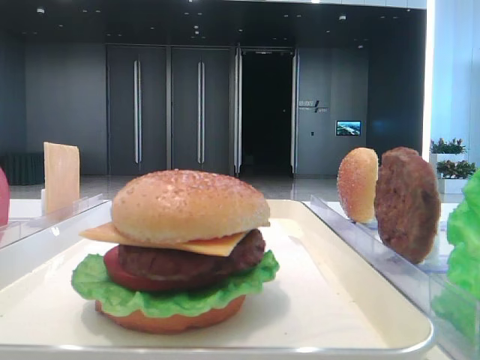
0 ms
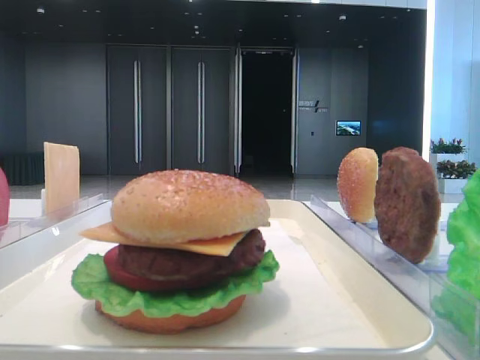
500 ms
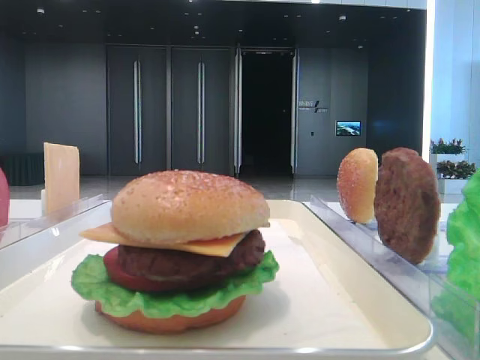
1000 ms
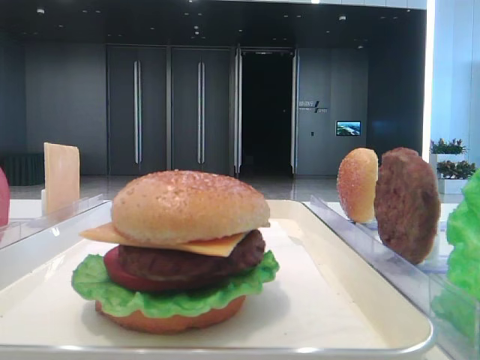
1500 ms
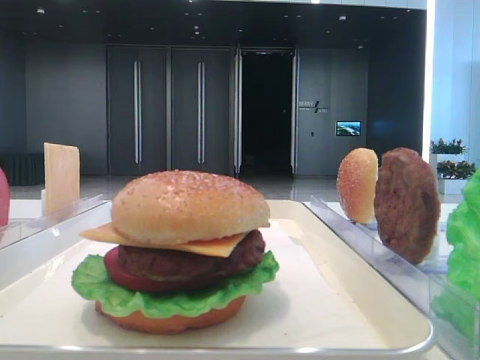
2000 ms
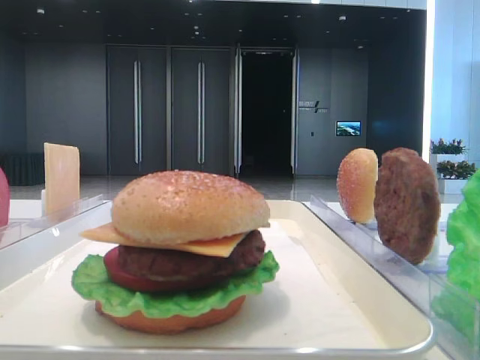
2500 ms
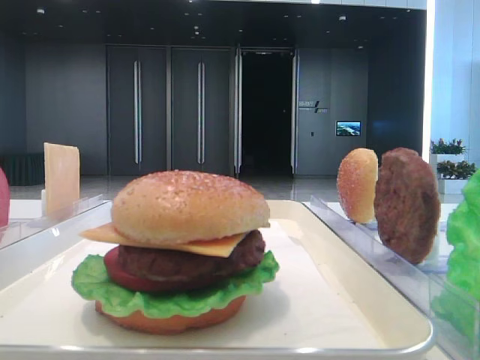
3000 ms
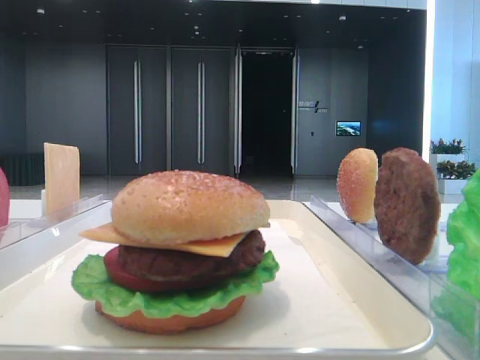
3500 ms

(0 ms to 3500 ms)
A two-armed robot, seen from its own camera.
2000 ms - 3500 ms: The two grippers keep their place.

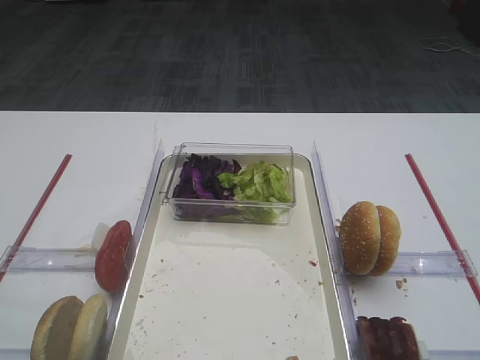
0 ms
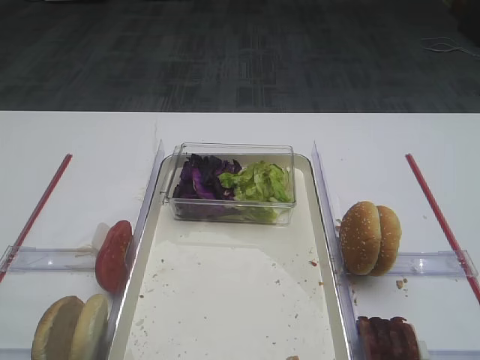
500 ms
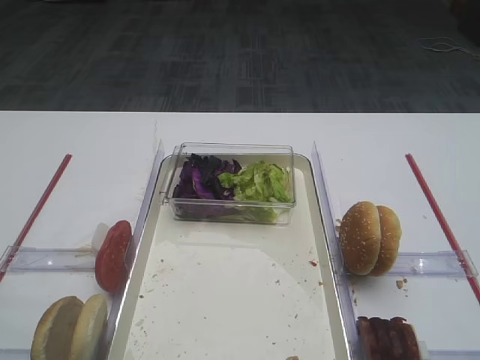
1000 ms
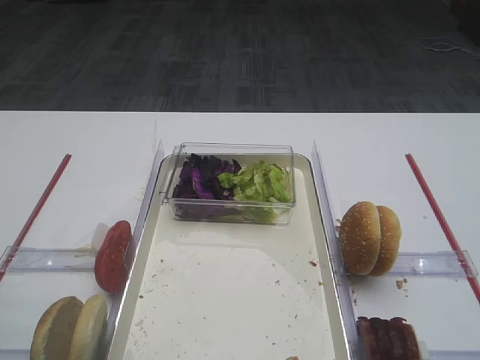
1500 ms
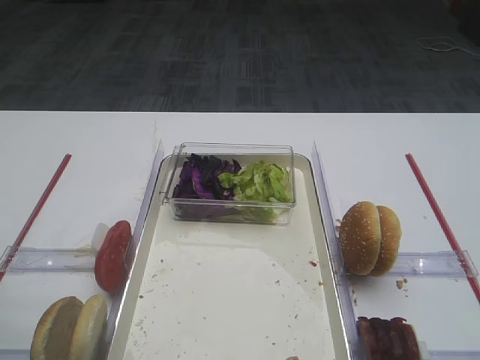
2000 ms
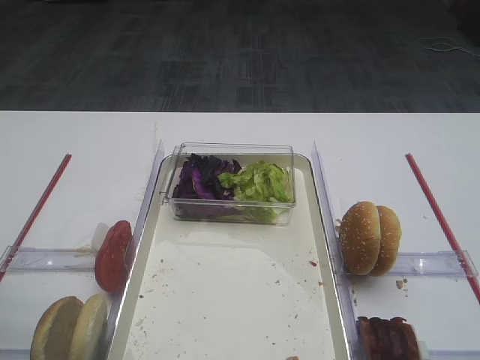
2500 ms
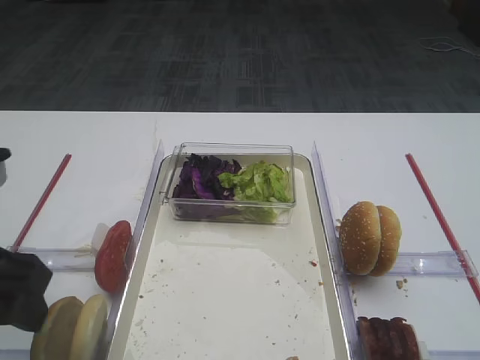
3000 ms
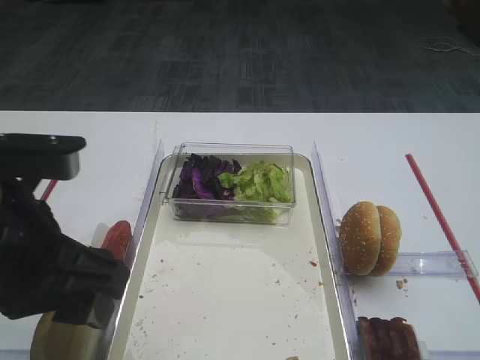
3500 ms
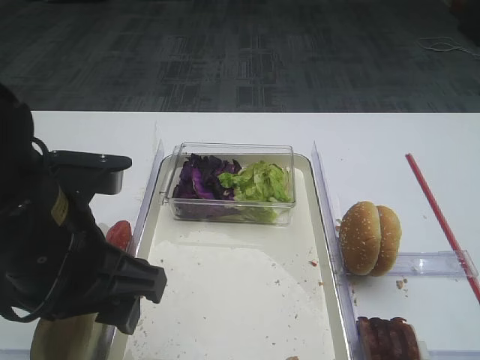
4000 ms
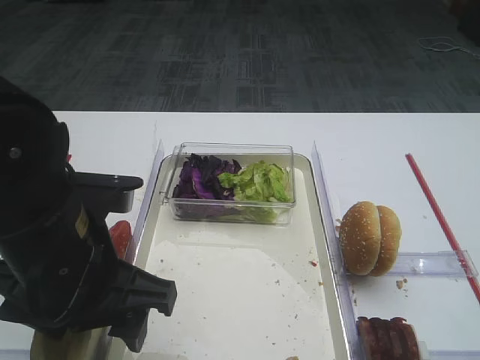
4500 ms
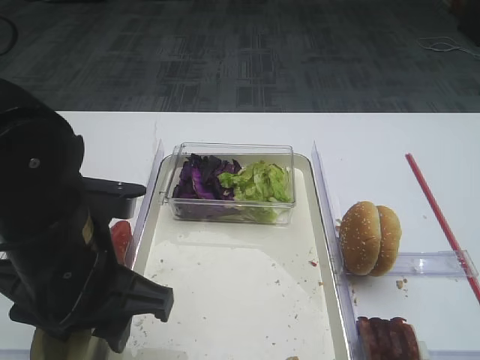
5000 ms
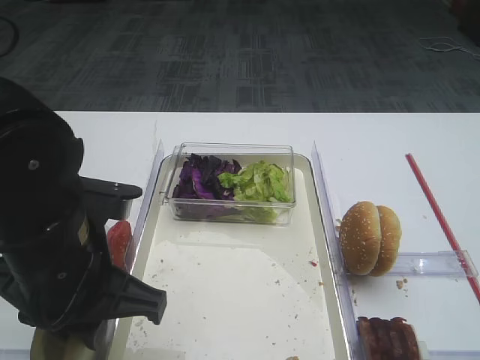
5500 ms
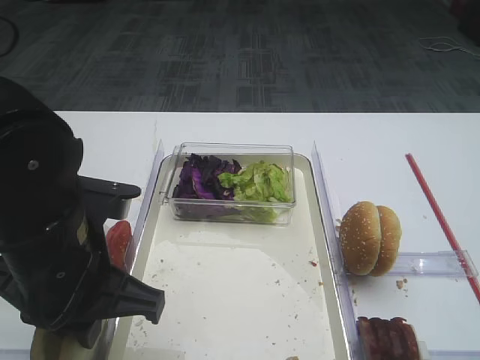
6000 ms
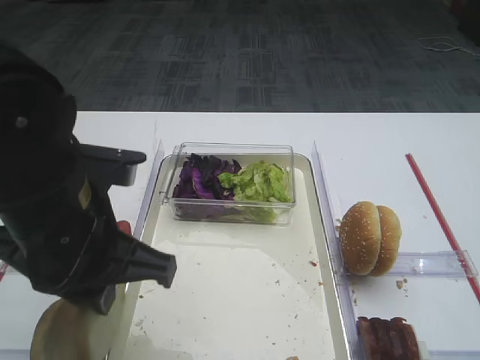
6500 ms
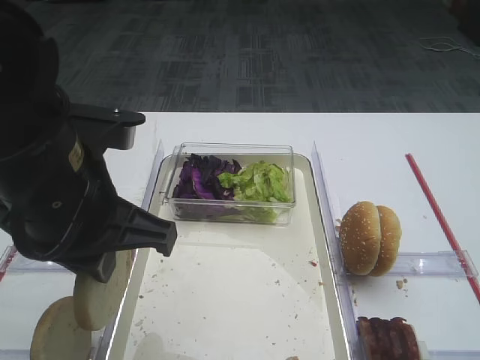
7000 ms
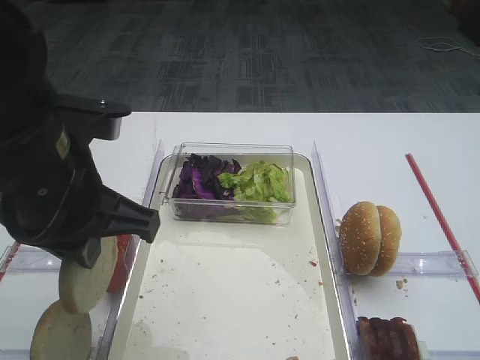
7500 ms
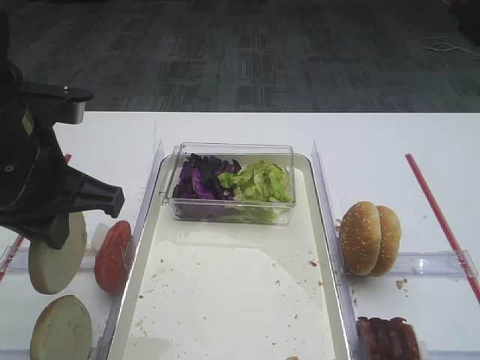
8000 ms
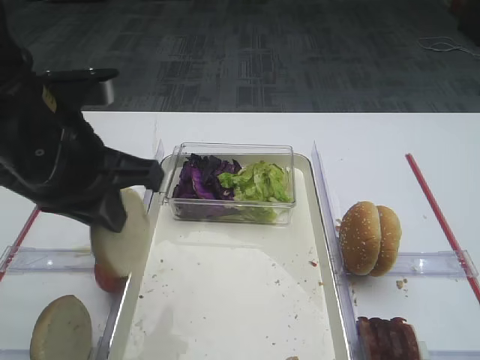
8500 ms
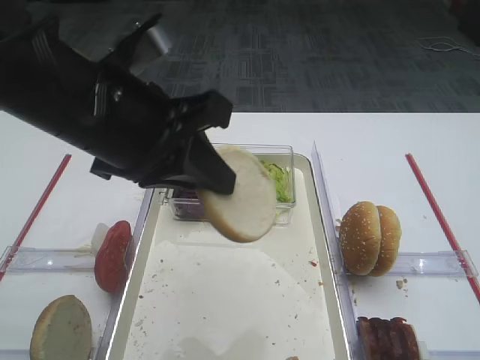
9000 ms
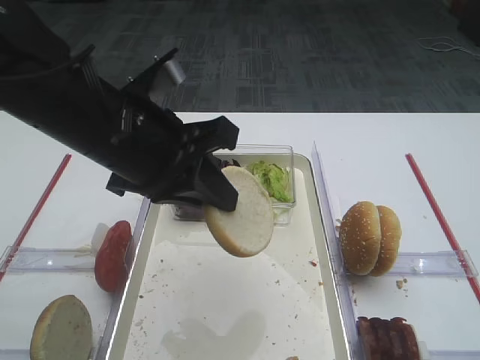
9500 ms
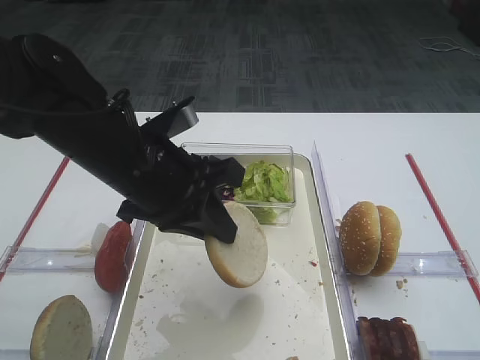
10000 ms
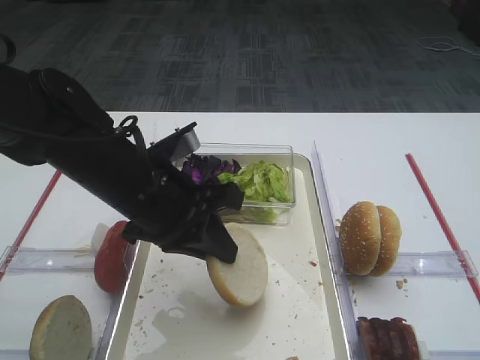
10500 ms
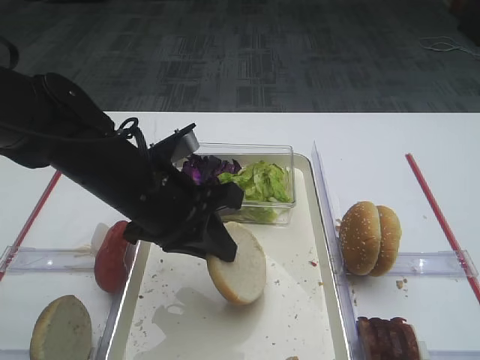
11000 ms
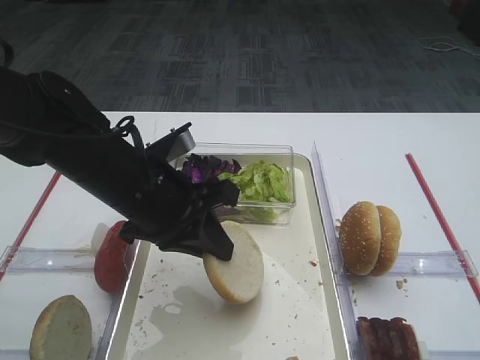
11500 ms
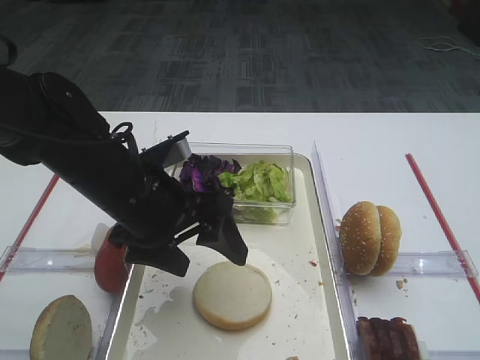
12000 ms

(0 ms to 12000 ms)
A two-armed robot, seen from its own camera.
Step, 0 ms - 6000 ms: Pick up the bread slice with the left gripper.
2000 ms - 4000 ms: The left gripper heads to the right, covering some 15 cm.
4000 ms - 6000 ms: The left gripper closes.
6000 ms - 8000 ms: The left gripper goes roughly 5 cm upward.
8000 ms - 10000 ms: The left gripper moves to the right, about 10 cm.
10000 ms - 12000 ms: The left gripper opens up.

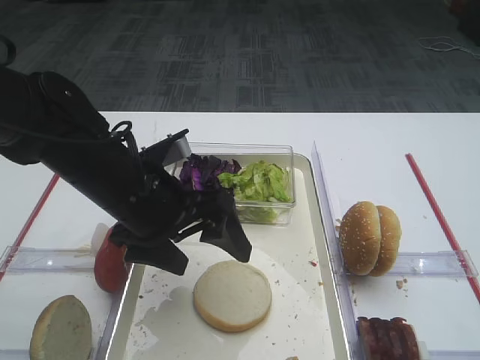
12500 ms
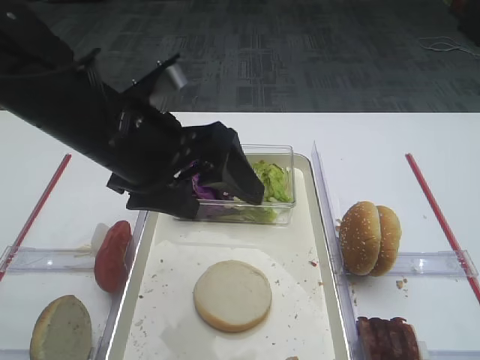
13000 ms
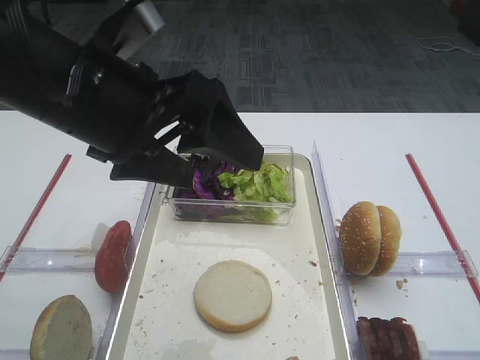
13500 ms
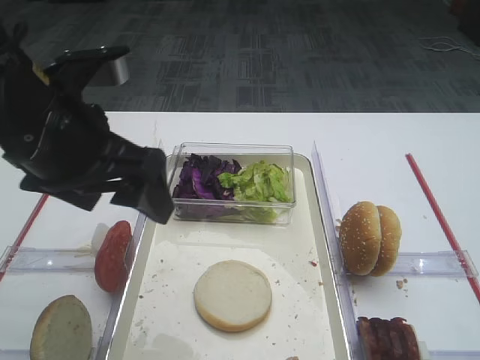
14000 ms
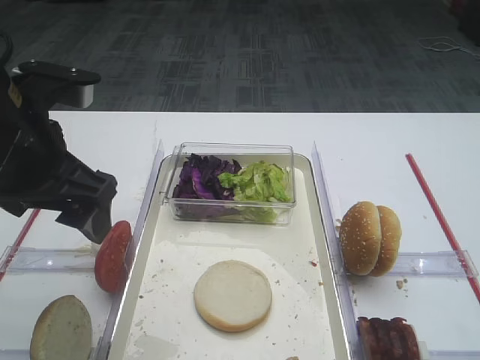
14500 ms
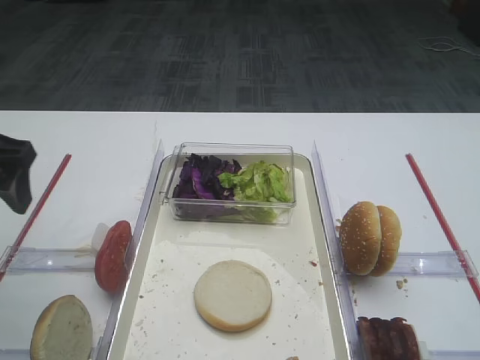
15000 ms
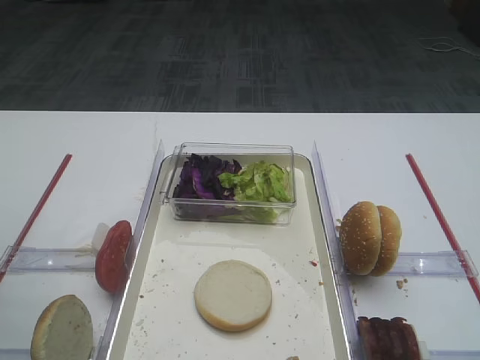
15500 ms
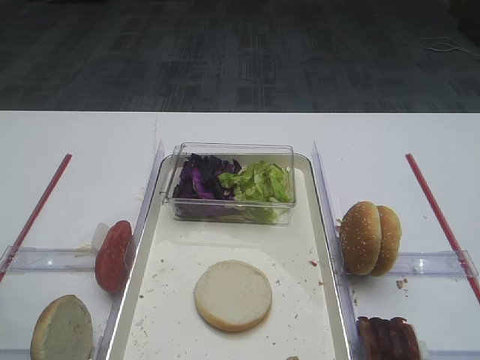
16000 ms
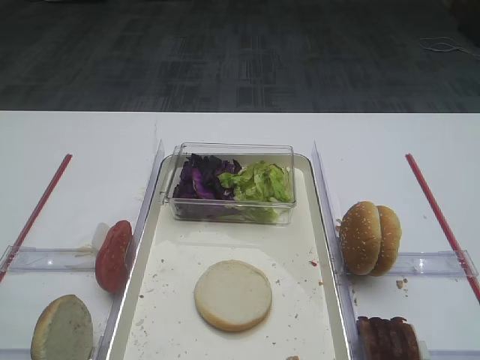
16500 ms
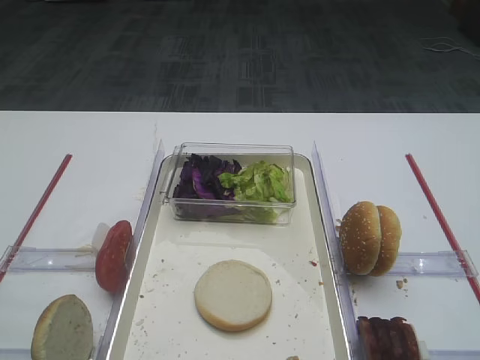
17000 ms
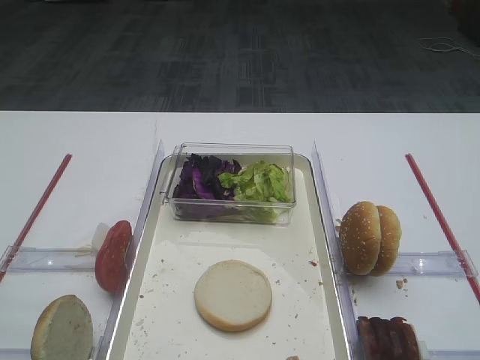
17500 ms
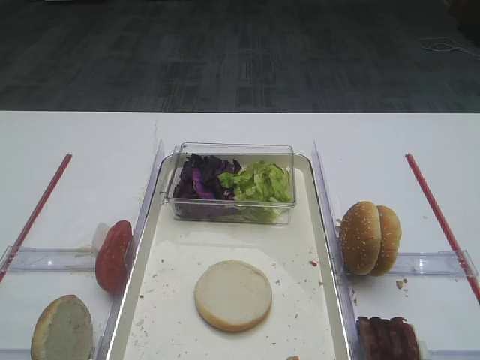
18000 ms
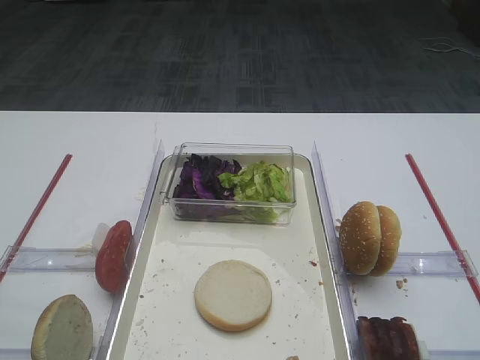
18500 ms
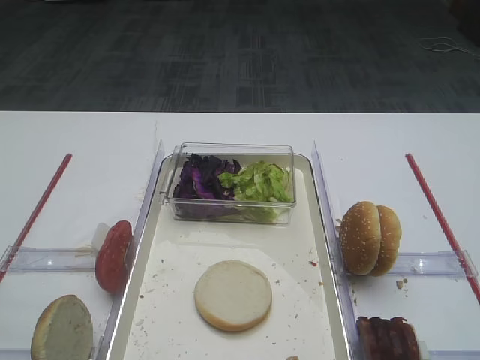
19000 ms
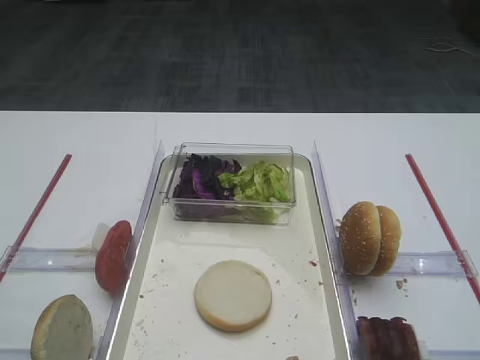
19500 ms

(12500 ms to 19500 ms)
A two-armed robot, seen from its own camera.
12500 ms - 14500 ms: The left gripper goes roughly 10 cm upward and to the left.
14500 ms - 16000 ms: The left gripper travels to the left and backward by some 15 cm.

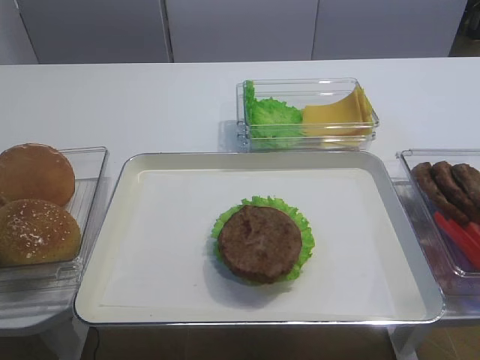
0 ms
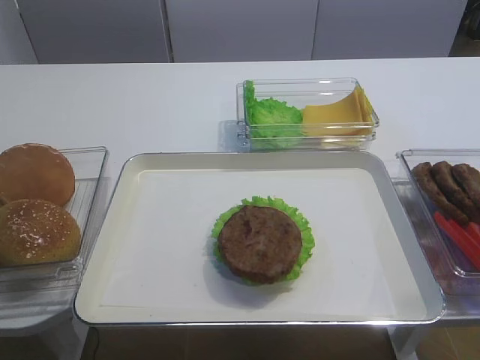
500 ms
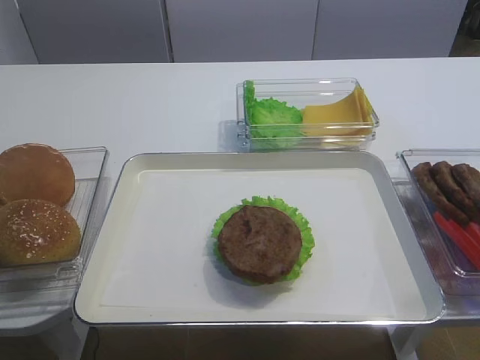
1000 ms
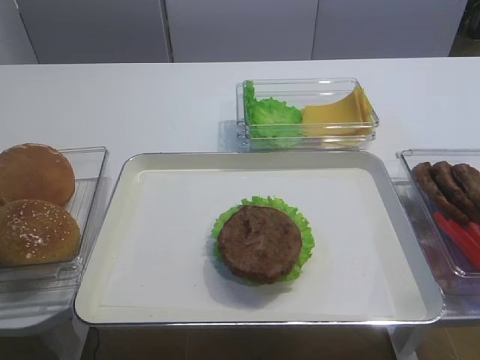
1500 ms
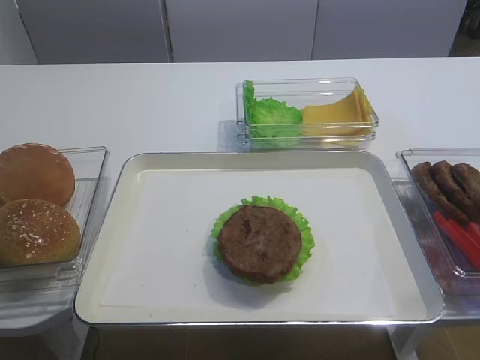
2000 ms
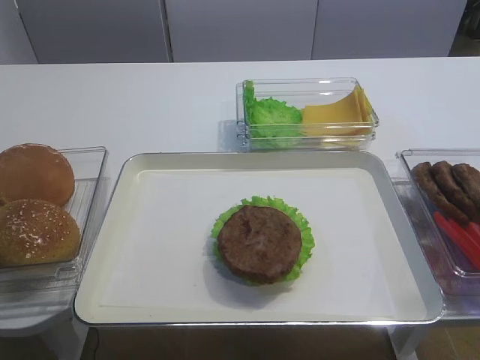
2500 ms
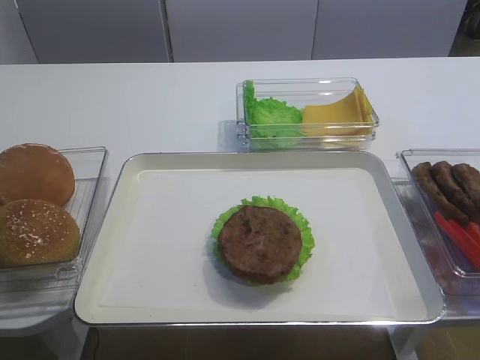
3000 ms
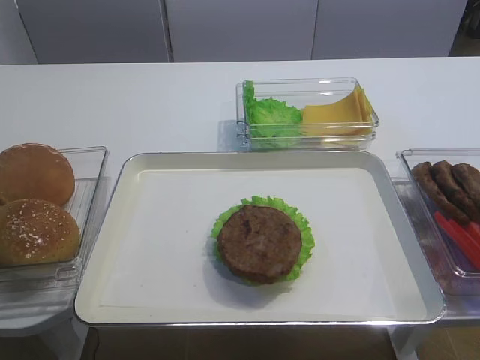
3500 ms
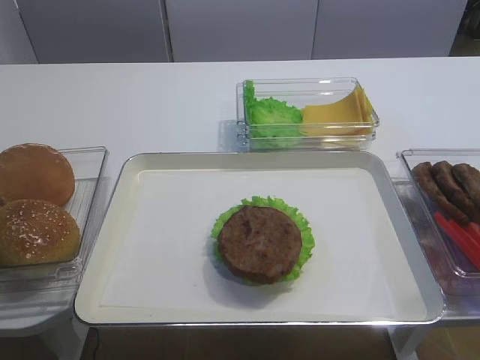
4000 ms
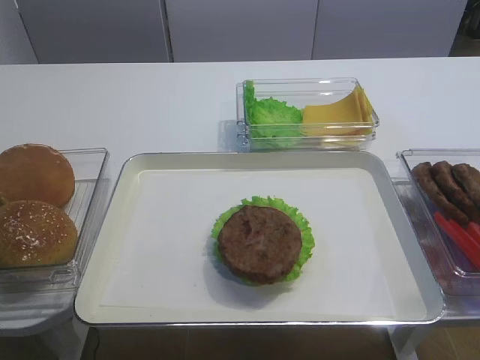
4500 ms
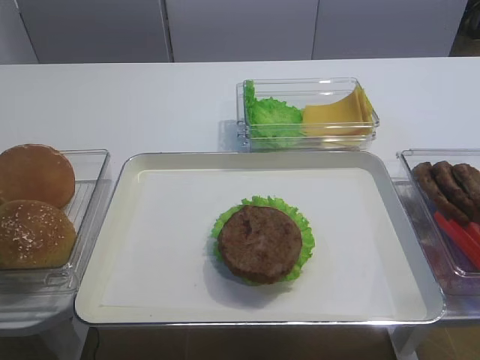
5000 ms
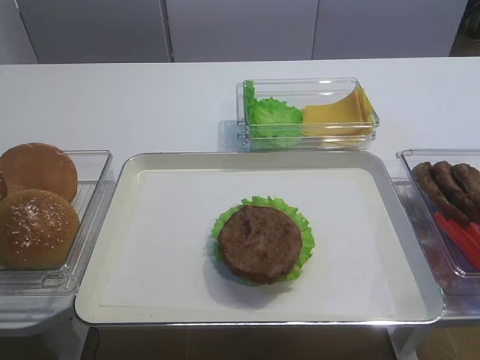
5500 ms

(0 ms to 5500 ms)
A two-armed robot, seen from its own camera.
3500 ms - 5500 ms: The left gripper closes.
